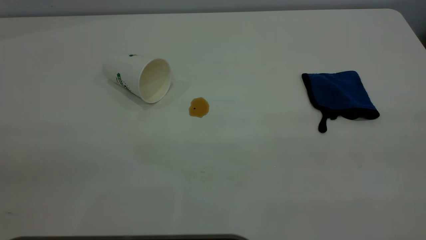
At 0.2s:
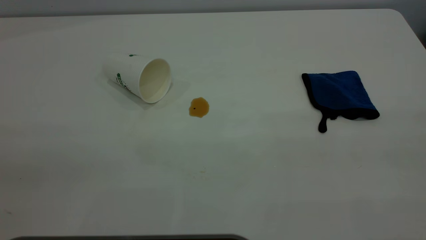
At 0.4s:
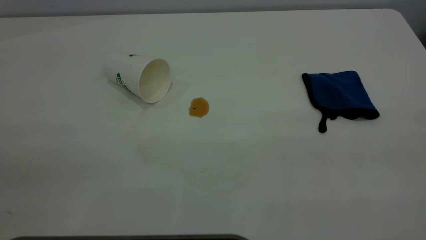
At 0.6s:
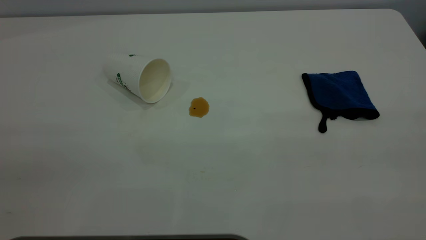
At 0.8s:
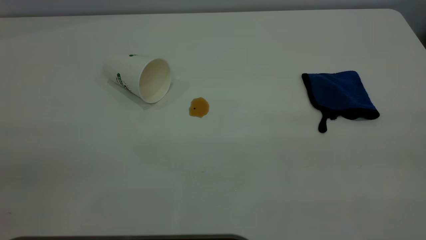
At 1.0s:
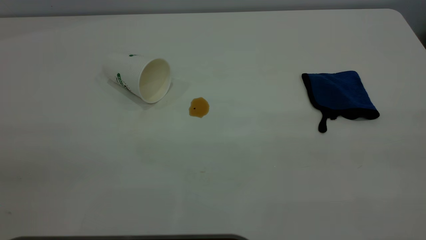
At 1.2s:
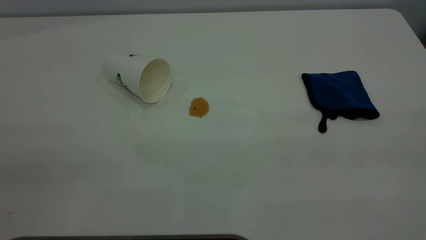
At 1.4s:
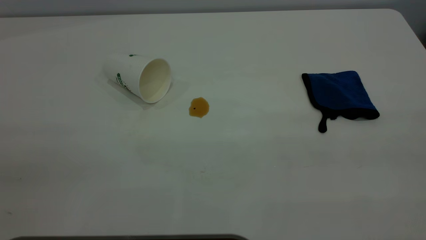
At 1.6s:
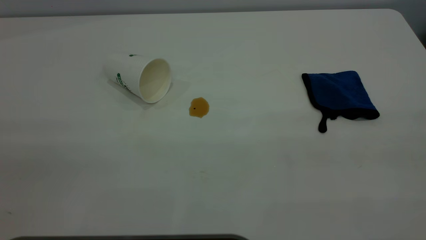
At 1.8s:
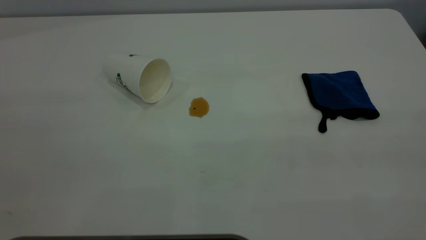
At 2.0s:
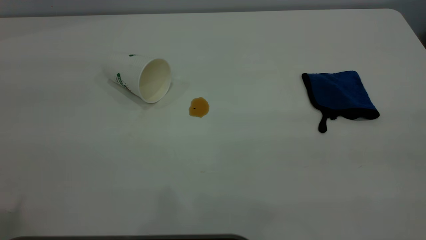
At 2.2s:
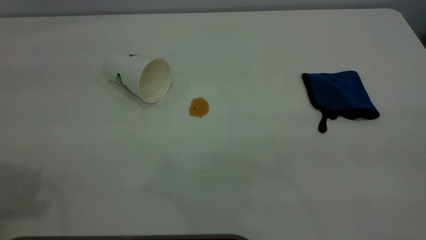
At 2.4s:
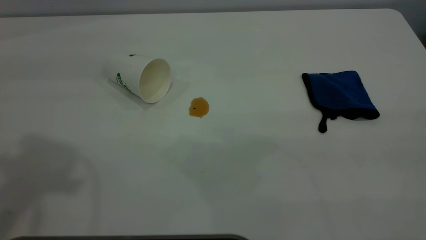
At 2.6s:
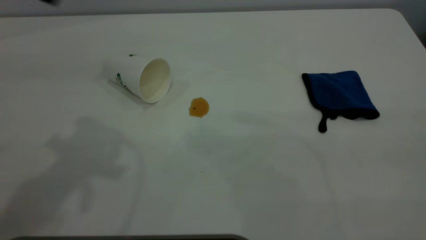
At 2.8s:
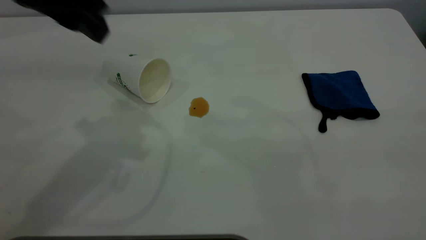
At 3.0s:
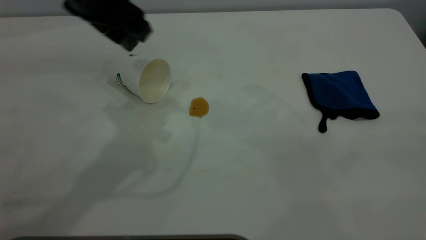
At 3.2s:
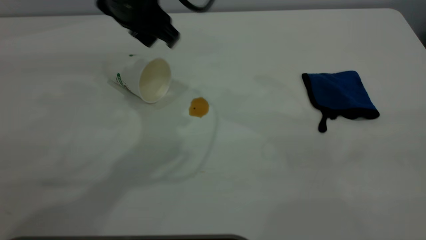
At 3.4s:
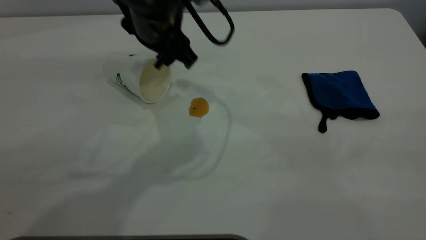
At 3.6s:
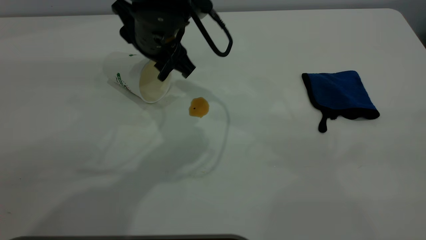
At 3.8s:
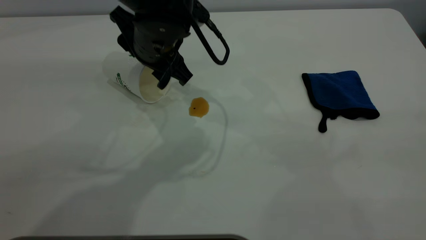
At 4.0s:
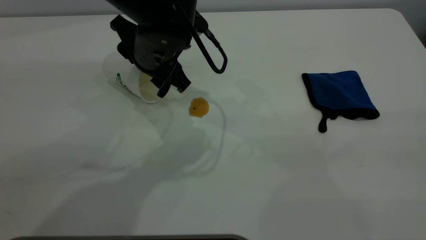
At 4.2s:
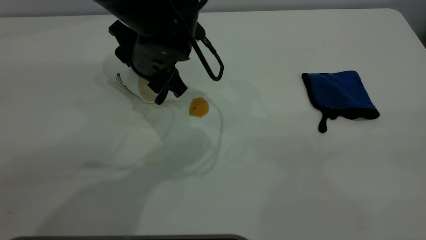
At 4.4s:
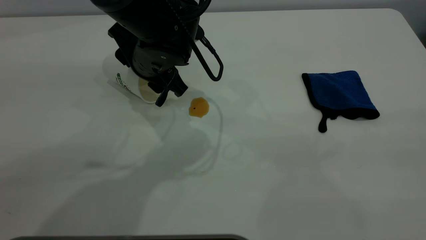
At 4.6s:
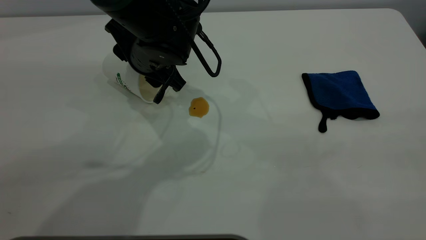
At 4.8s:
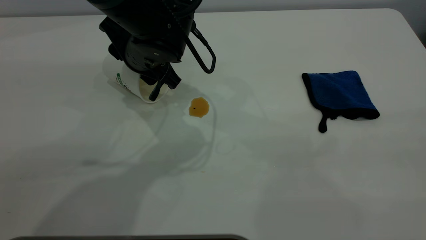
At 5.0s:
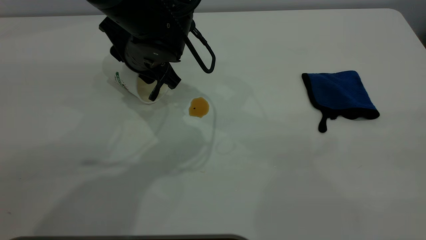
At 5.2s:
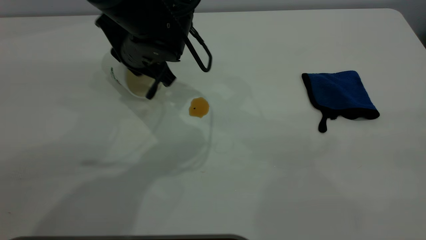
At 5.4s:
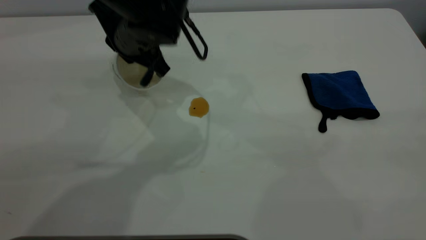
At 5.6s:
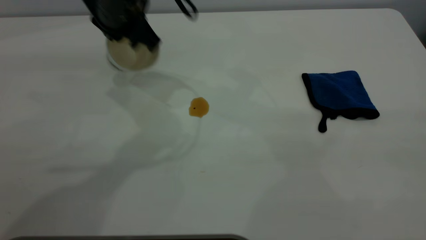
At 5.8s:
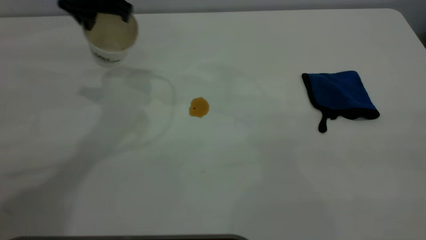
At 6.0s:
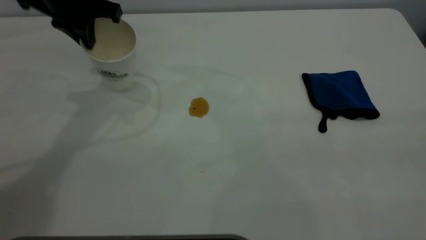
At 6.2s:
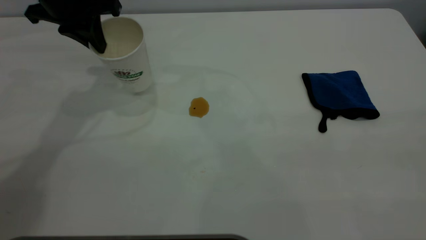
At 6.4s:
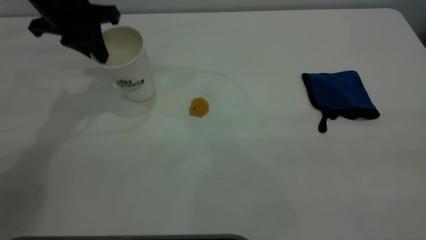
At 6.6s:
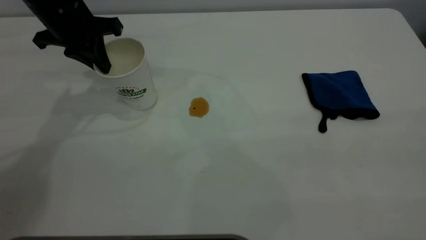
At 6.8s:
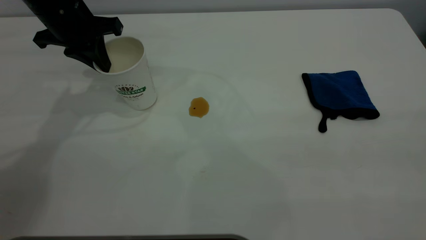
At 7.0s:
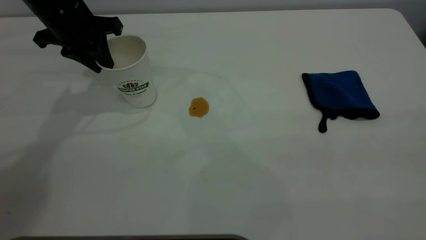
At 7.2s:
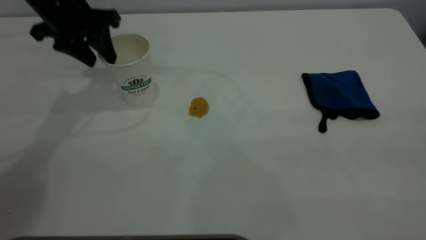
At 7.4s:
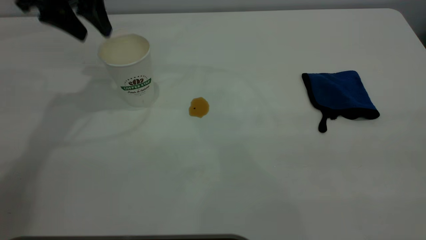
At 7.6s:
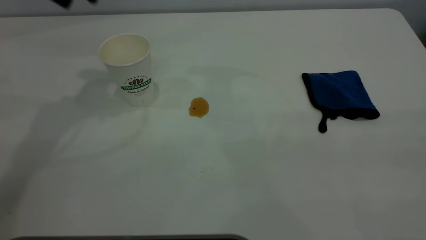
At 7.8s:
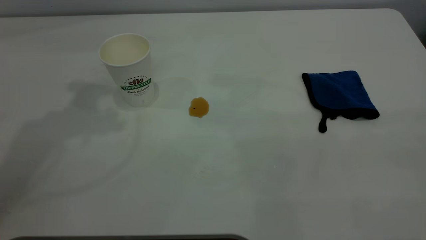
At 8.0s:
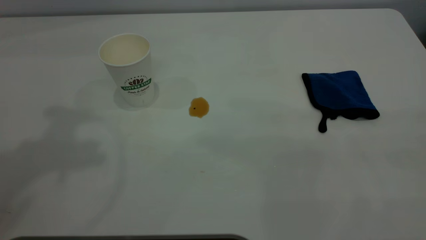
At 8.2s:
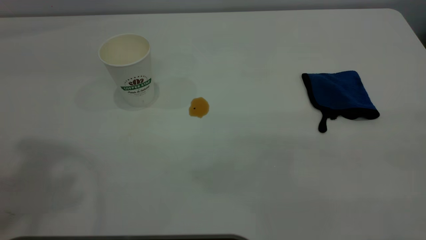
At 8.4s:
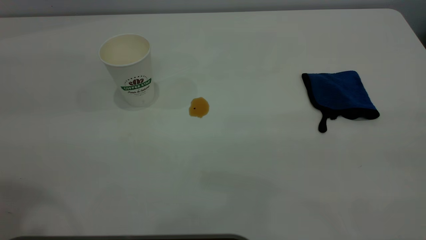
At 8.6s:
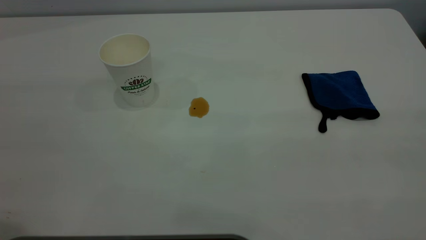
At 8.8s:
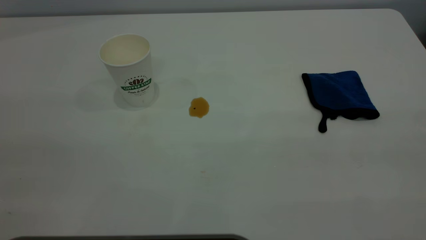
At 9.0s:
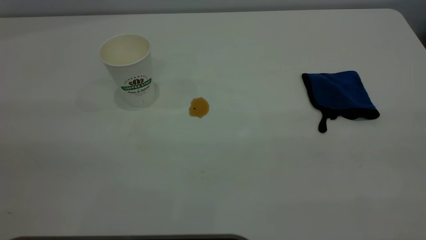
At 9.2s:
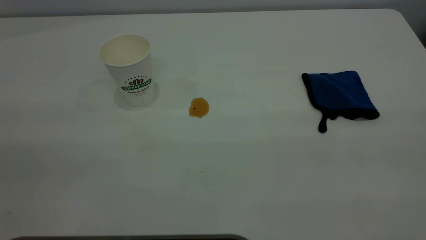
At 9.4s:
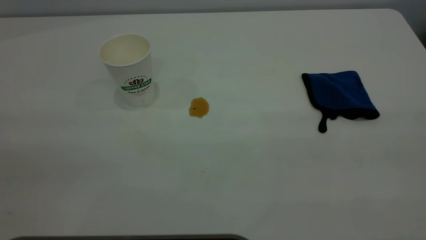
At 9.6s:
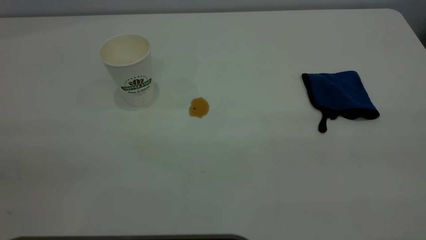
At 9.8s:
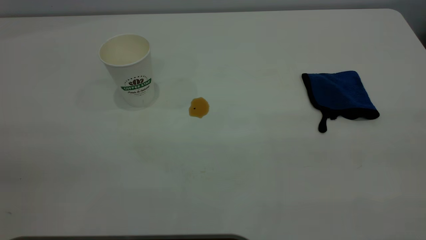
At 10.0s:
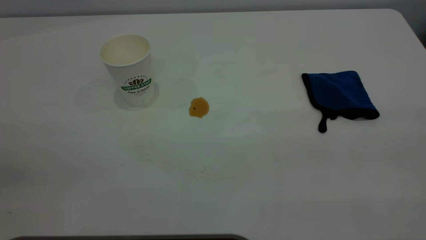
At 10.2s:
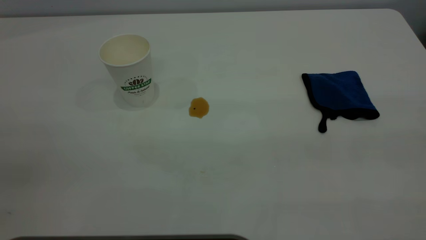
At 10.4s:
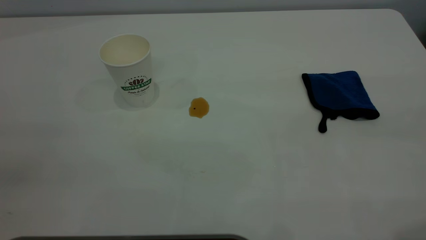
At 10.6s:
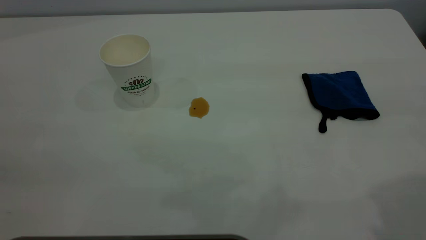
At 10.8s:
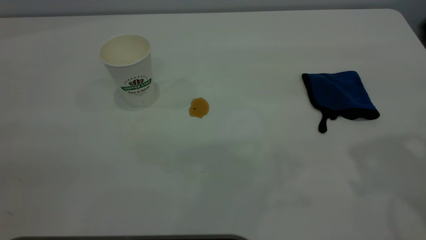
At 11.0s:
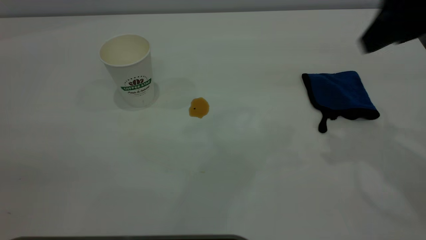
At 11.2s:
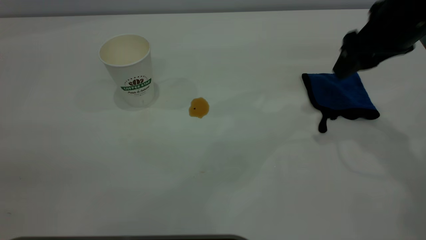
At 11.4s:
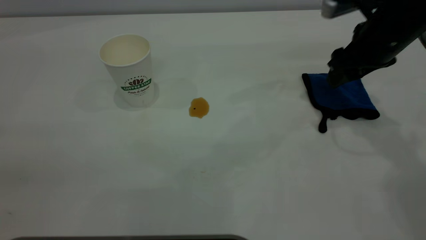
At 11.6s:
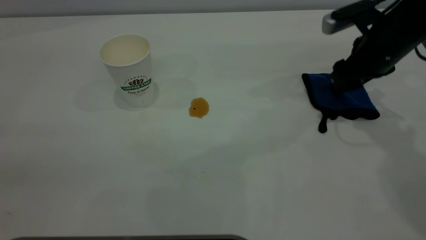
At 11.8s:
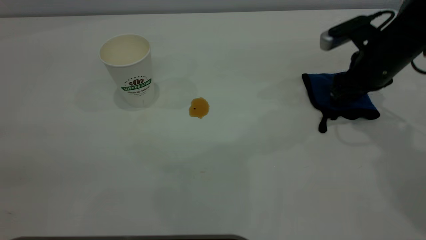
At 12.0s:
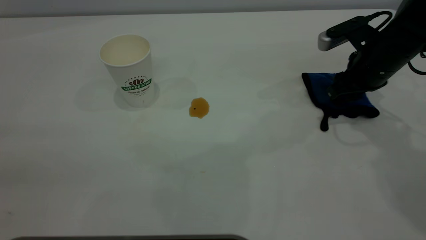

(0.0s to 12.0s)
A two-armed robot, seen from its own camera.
Task of the whole recording: the left gripper pick up the fallen cup and place it upright, the right gripper grasp the blue rag and wipe the tea stain on the table, the right gripper put the blue rag back in its original position.
Step, 0.0s - 7.2s: Stand the paper cup upright.
0.0s - 1.6s: Neither gripper changes place.
1.6s - 3.0s: The left gripper heads forward and to the right, covering about 40 cm.
3.0s - 4.4s: The left gripper heads downward, covering approximately 15 cm.
4.4s - 6.0s: The left gripper shifts roughly 20 cm to the left, upward and forward, and closes up.
6.0s - 7.6s: The left gripper is displaced upward by roughly 10 cm, and opens up.
10.4s - 12.0s: The right gripper is displaced forward and downward by about 40 cm, and closes up.

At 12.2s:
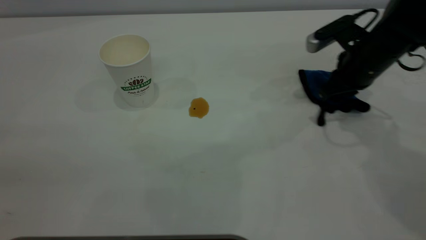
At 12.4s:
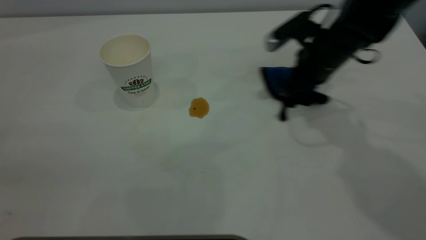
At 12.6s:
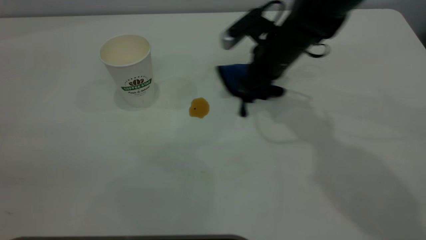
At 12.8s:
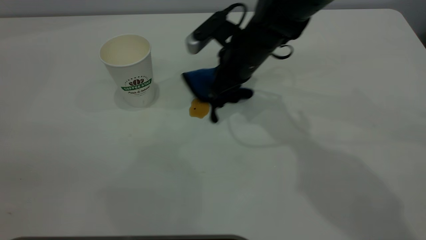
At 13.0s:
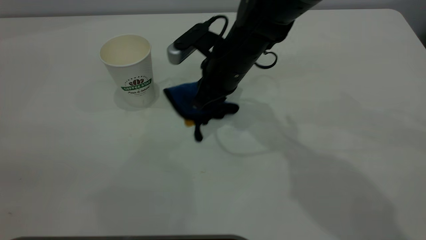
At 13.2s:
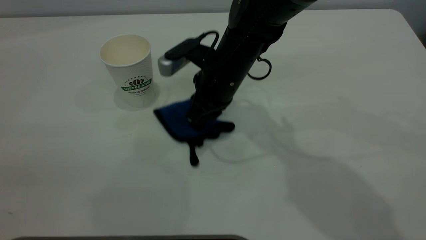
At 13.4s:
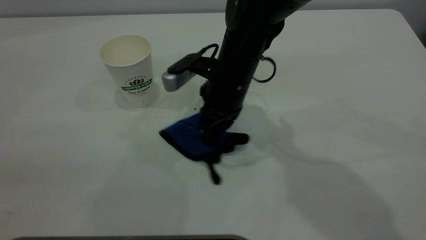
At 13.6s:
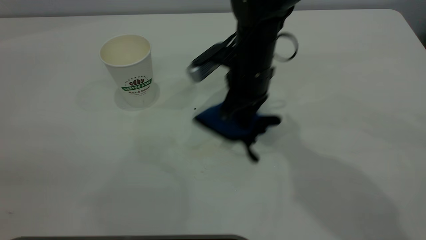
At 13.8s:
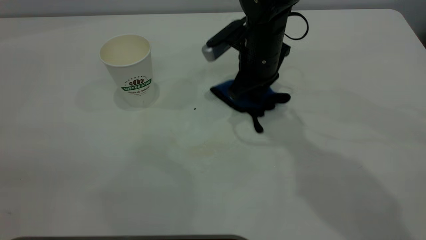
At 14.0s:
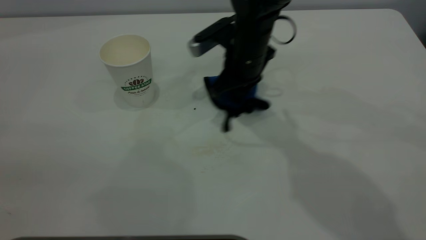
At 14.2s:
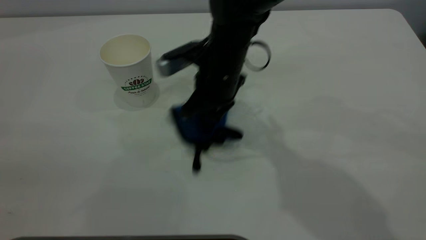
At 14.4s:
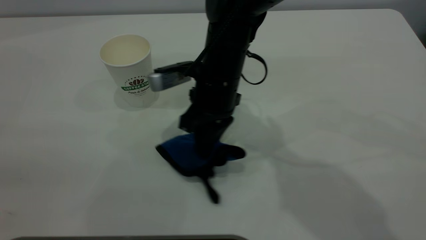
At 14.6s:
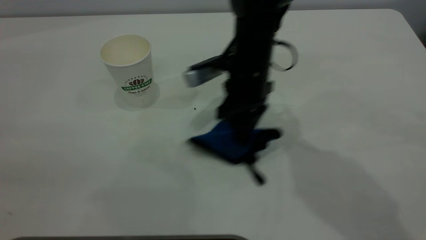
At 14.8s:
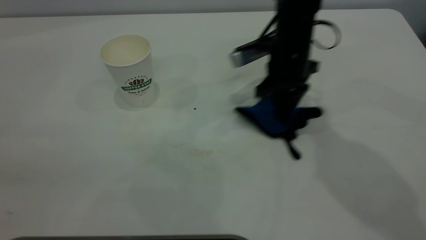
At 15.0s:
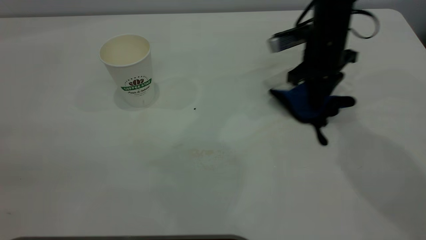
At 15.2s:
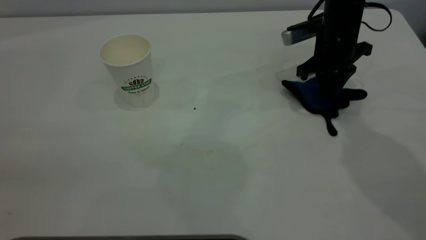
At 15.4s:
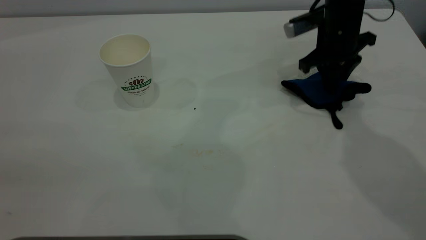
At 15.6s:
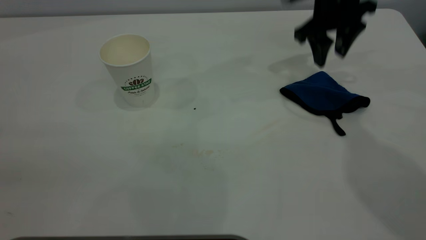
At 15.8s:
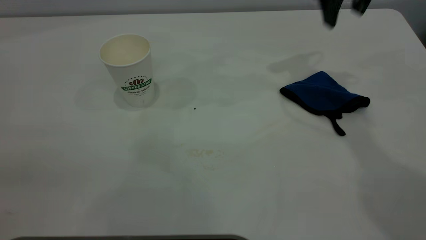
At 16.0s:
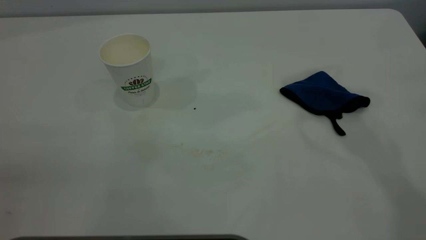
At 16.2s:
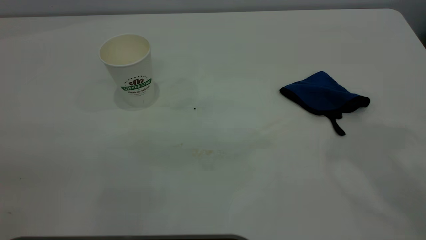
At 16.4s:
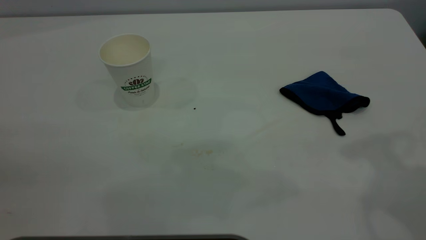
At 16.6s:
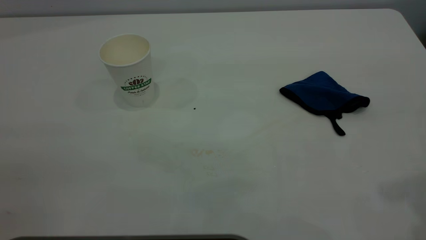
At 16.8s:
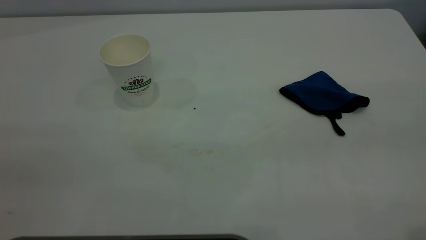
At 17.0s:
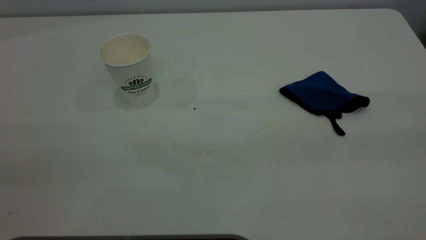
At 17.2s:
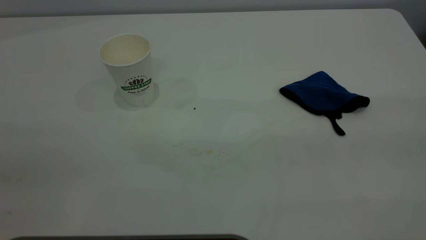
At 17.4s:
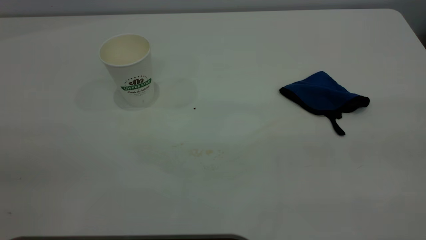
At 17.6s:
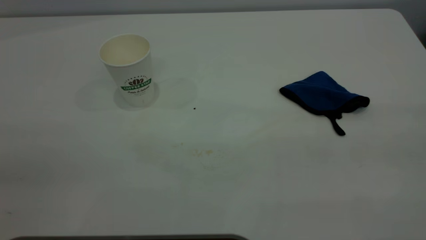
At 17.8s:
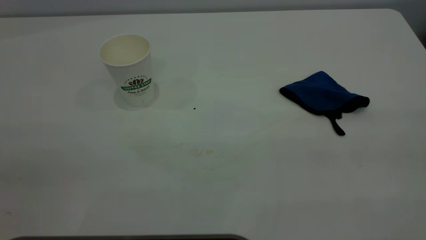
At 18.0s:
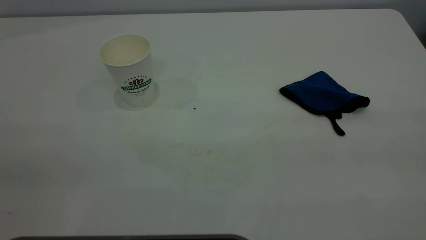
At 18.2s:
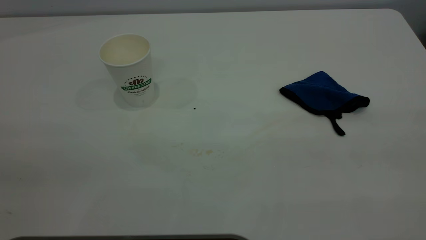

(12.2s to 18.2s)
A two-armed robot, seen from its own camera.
Task of the whole recording: the left gripper pick up the fallen cup and place it upright, the right gripper grasp the blue rag and wipe the tea stain on the table, the right gripper put the blue rag back in its original position.
Step, 12.2s - 15.6s: Wipe the stains off the table with a rag.
12.2s - 13.8s: The right gripper moves to the left, about 15 cm.
13.8s - 15.2s: The right gripper goes approximately 15 cm to the right.
15.2s - 16.6s: The right gripper goes roughly 40 cm backward and upward, and opens up.
